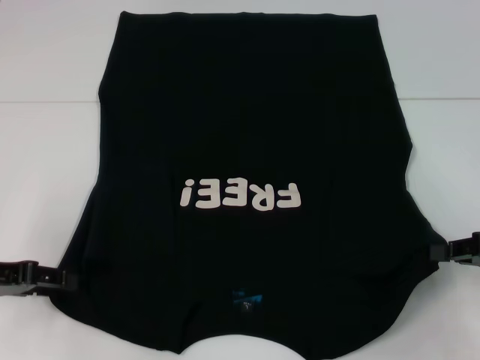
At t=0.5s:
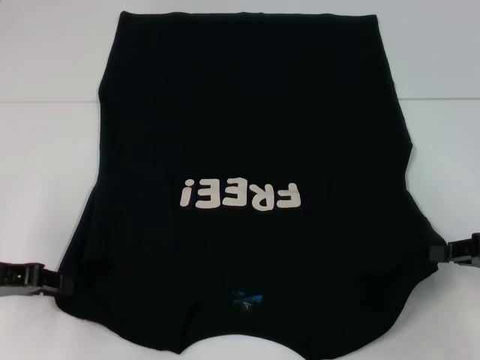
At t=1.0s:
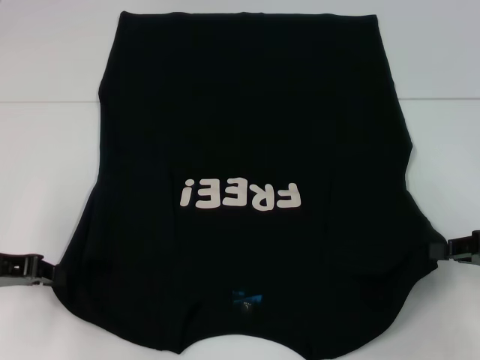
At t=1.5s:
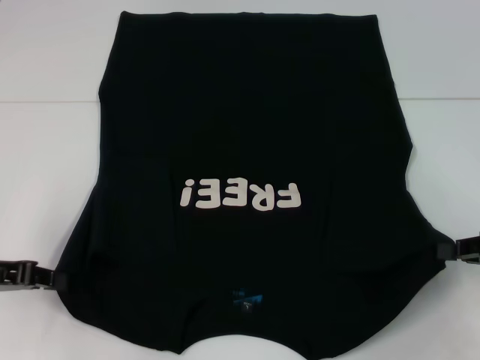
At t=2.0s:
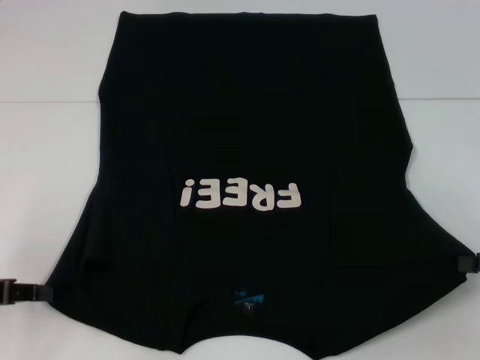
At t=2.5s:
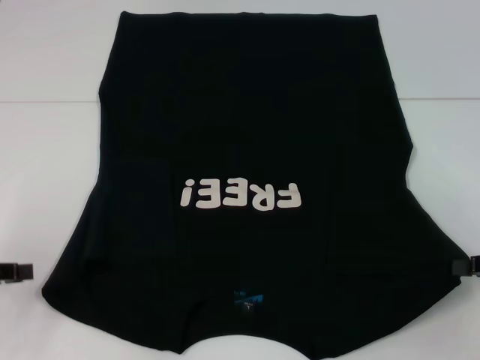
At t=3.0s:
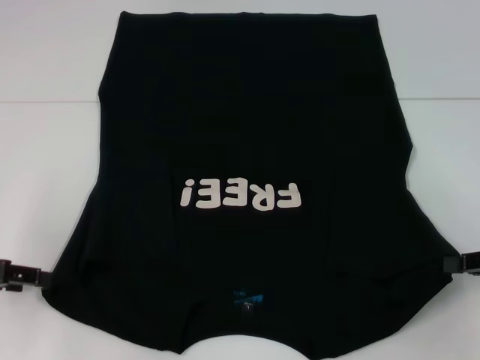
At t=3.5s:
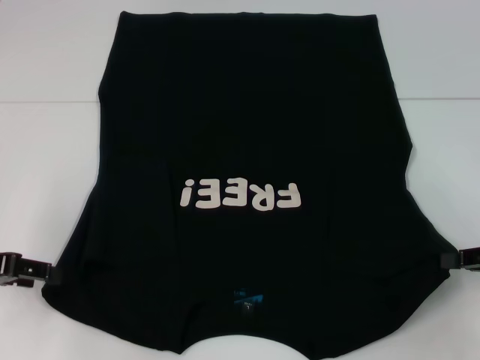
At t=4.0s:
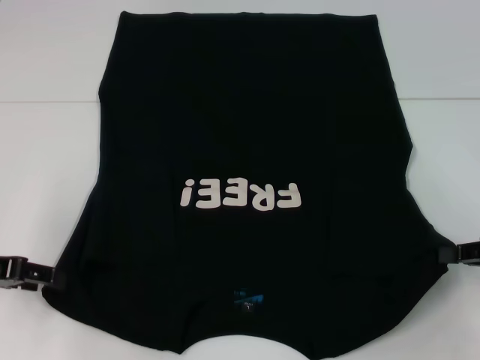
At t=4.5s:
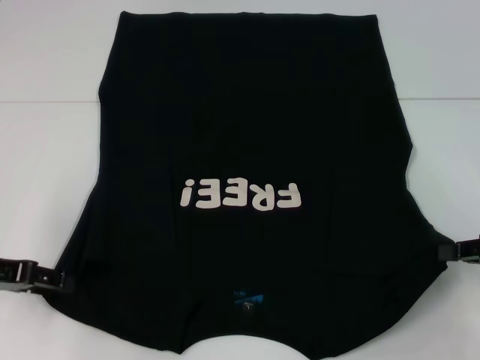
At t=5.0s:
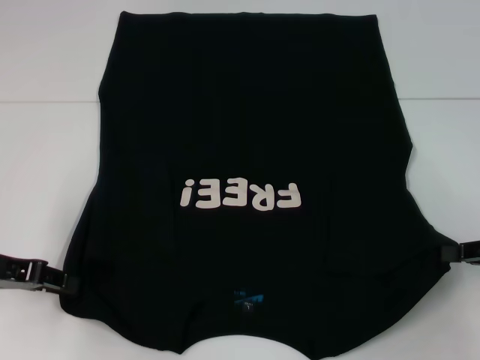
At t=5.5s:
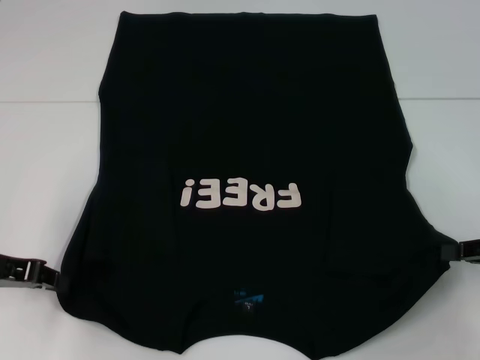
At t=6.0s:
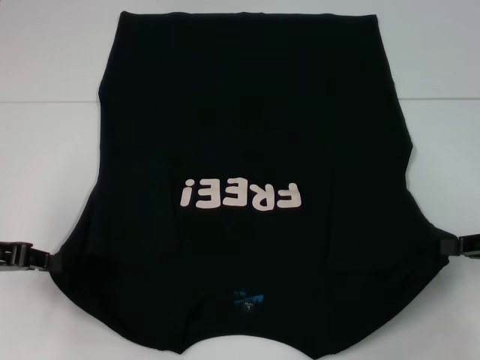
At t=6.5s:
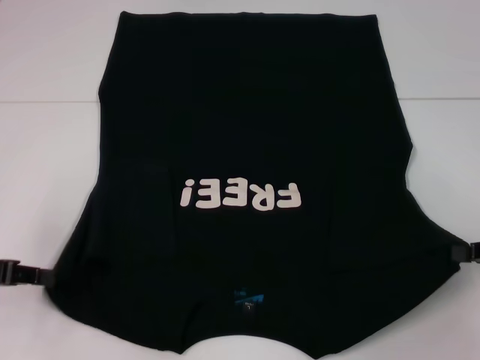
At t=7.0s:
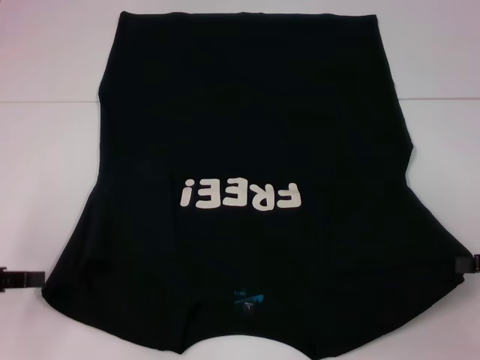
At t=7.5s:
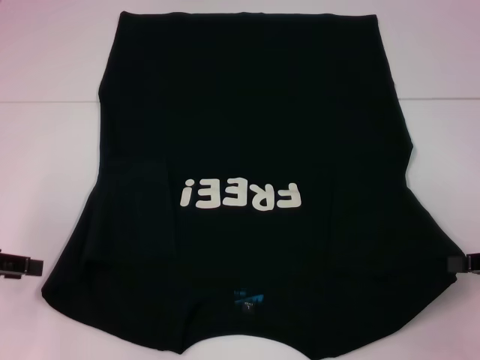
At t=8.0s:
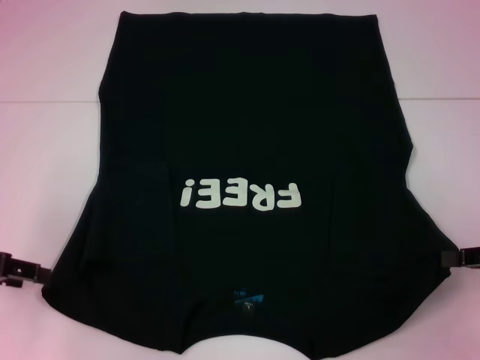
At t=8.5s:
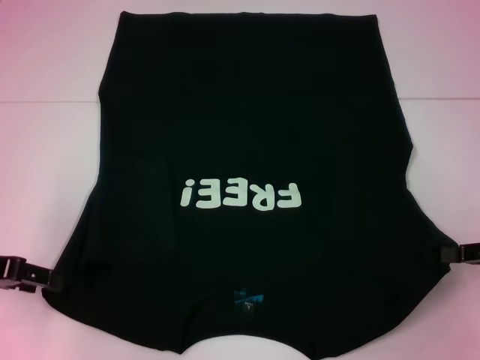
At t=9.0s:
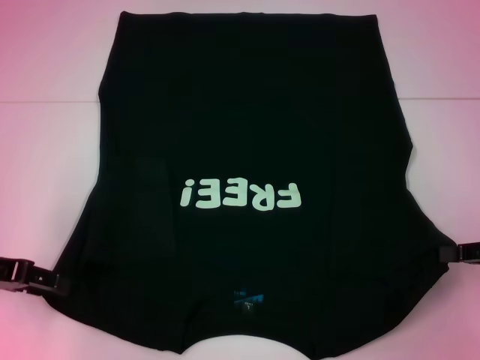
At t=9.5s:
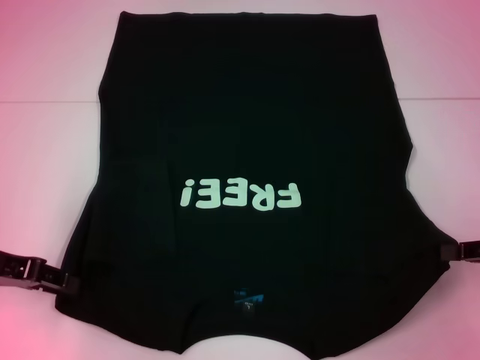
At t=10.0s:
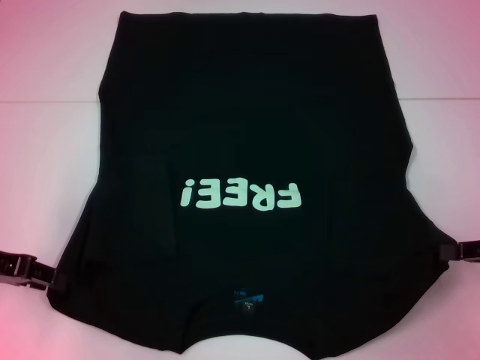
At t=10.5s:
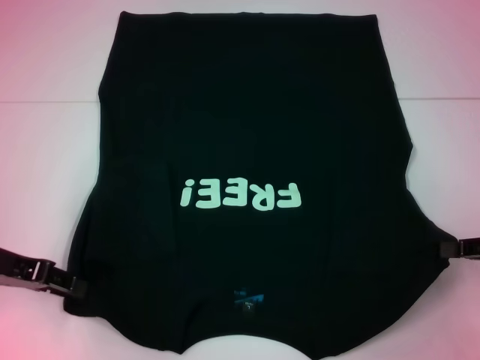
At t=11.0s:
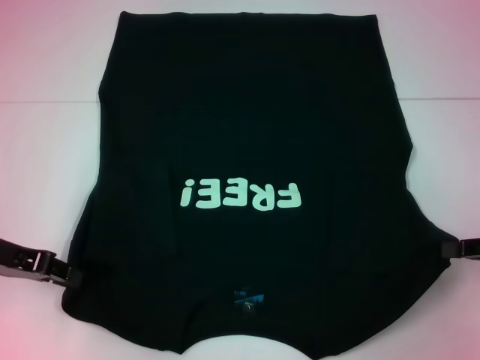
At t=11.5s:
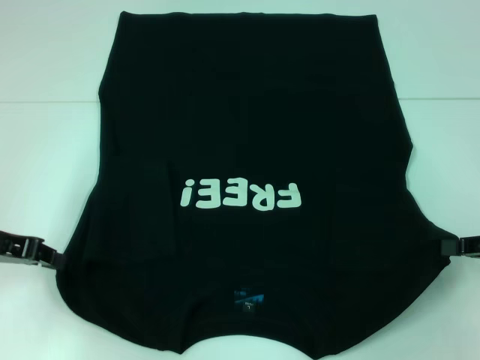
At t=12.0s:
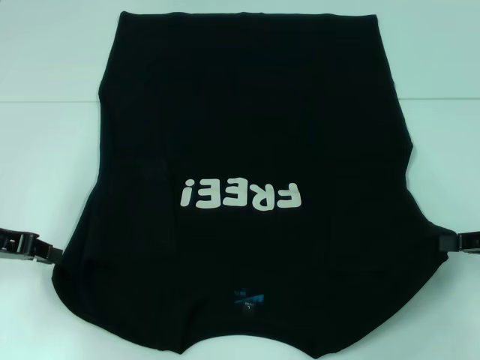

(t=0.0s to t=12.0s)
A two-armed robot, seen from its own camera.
t=0.0s - t=2.0s: The left gripper closes up.
t=2.0s - t=4.0s: The left gripper opens.
t=4.0s - t=6.0s: The left gripper closes up.
t=6.0s - t=8.0s: The left gripper opens its fingers.
t=8.0s - t=10.0s: There are only small adjustments of the grippers.

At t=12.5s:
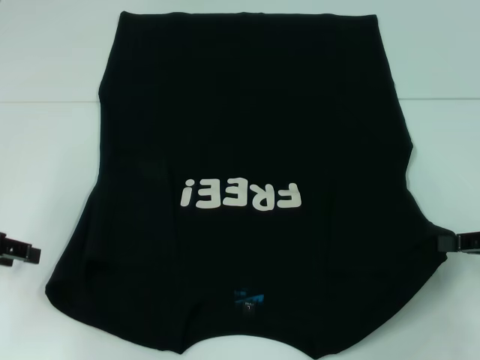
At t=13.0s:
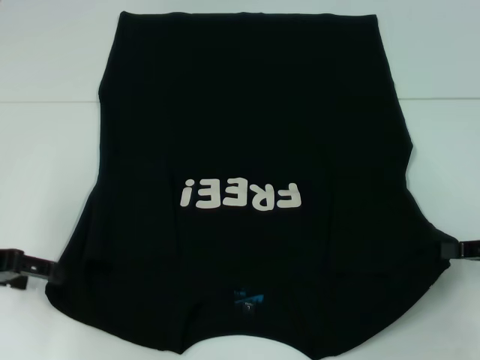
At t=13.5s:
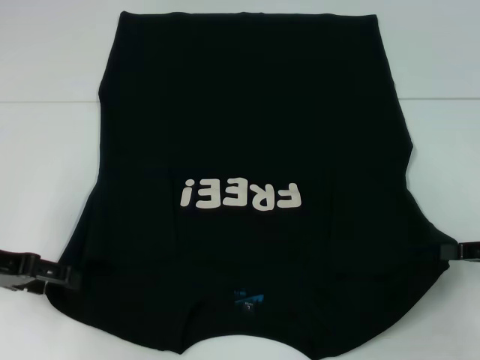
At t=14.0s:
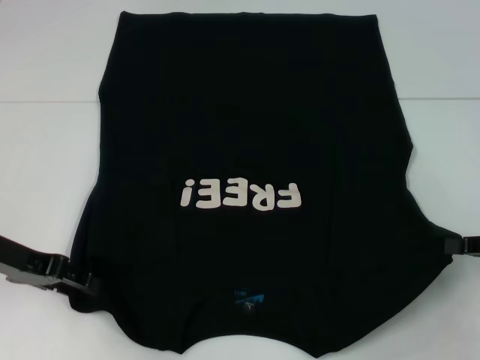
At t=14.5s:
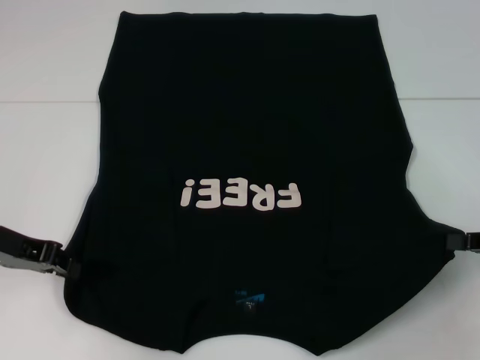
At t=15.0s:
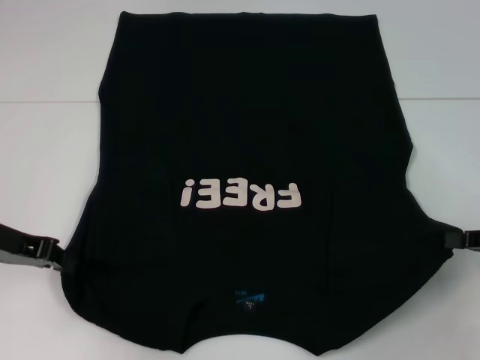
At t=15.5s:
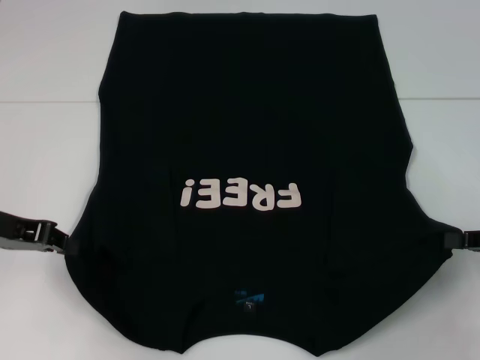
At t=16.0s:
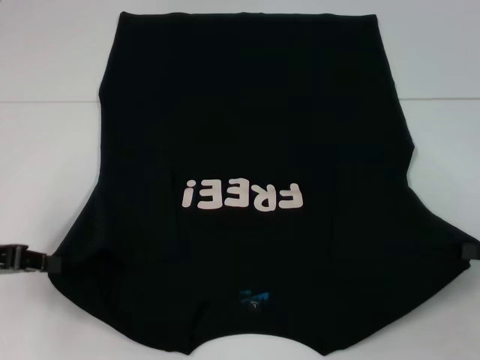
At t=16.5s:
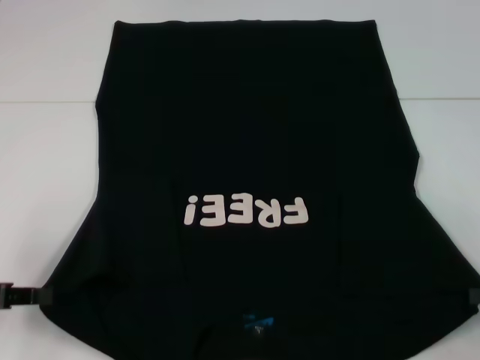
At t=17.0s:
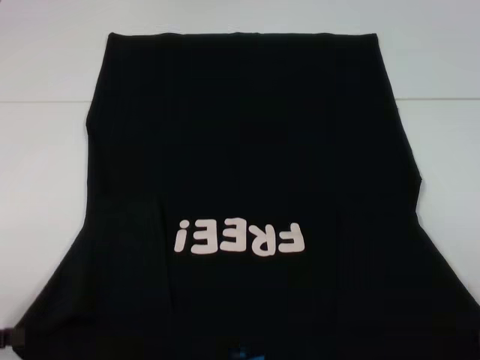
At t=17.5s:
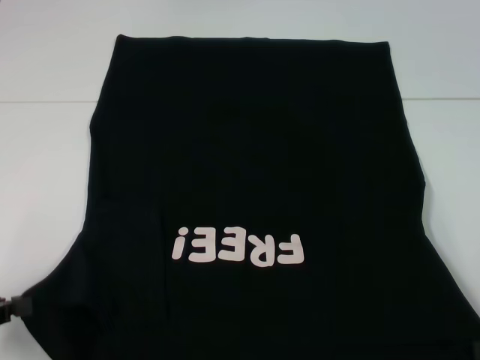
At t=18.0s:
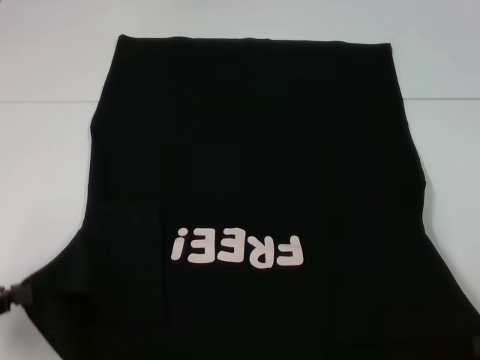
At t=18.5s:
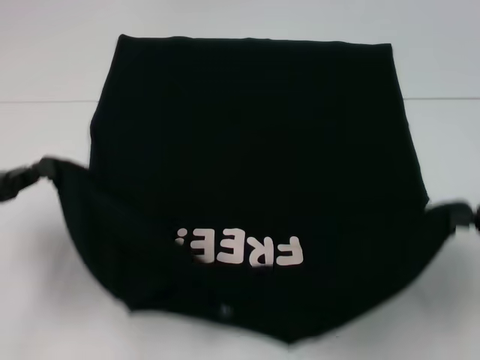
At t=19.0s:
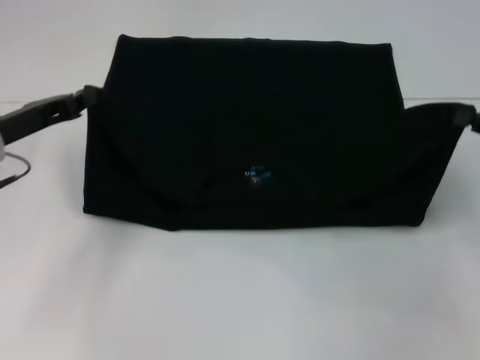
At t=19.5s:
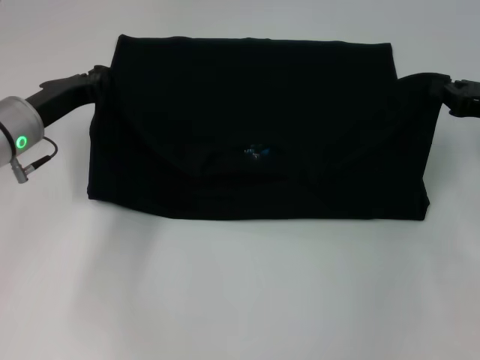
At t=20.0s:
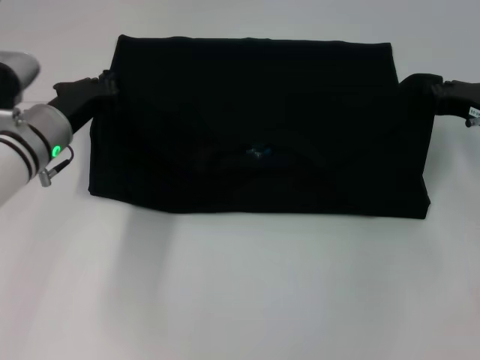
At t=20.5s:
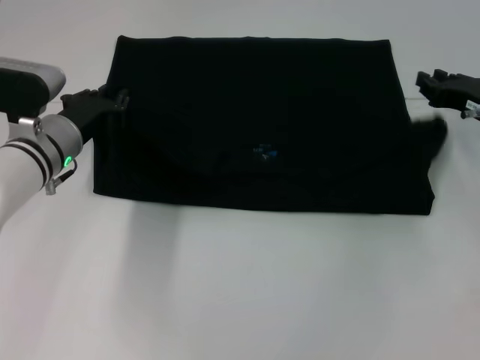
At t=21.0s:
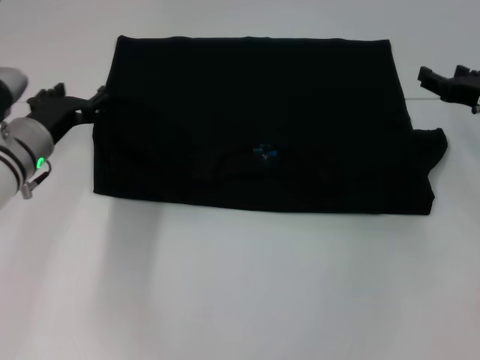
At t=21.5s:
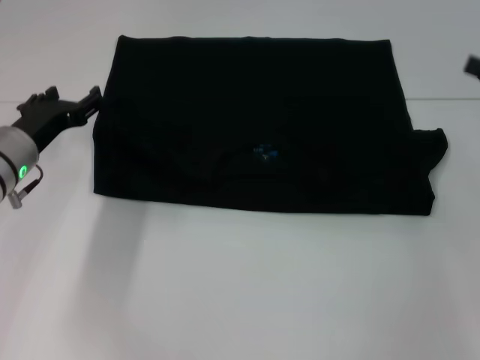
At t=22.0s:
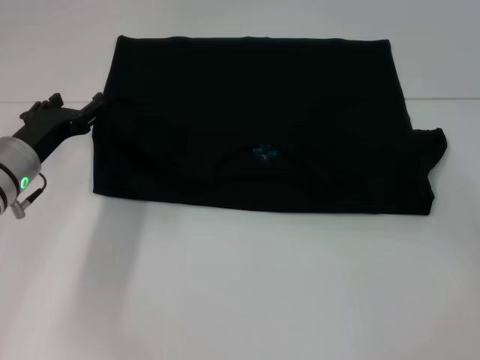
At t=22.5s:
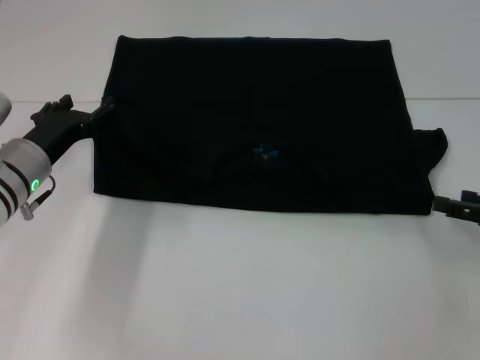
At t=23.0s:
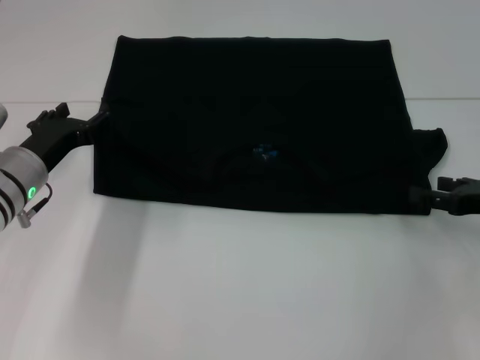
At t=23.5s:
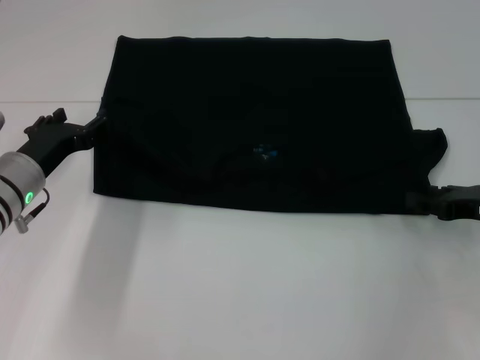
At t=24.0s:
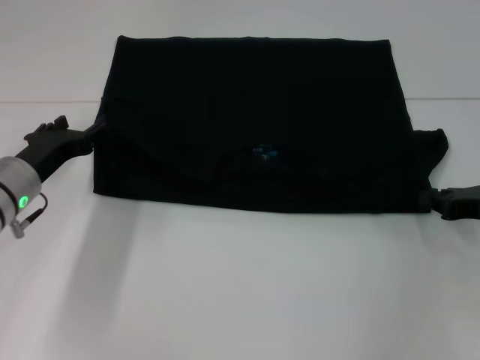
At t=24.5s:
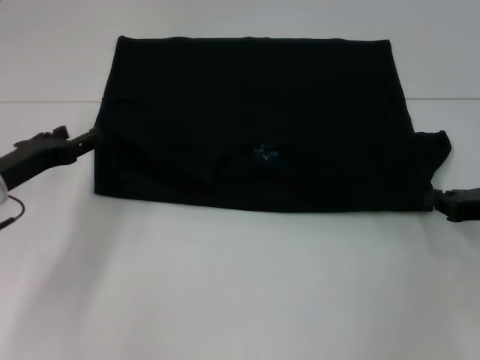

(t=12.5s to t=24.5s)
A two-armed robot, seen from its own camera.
Step, t=12.5s - t=14.5s: Grab the bottom left corner with your left hand.
Step, t=15.0s - t=20.5s: Fold the clothes with your left hand.
Step, t=15.0s - t=20.5s: Fold the clothes with your right hand.
t=12.5s - t=14.5s: The left gripper moves some 5 cm, and opens, then closes once more.
t=14.5s - t=16.5s: The left gripper heads backward and to the left, covering some 10 cm, and closes.
t=16.5s - t=18.5s: The left gripper goes backward and returns, roughly 5 cm each way; the right gripper moves upward, roughly 5 cm.
t=18.5s - t=20.5s: The right gripper moves forward and to the left, approximately 15 cm. Meanwhile the left gripper shifts about 20 cm to the right and forward.
t=20.5s - t=22.5s: The right gripper travels backward and to the right by some 10 cm, and opens up. Meanwhile the left gripper opens.
t=22.5s - t=24.5s: The left gripper moves about 5 cm, while the right gripper closes up.

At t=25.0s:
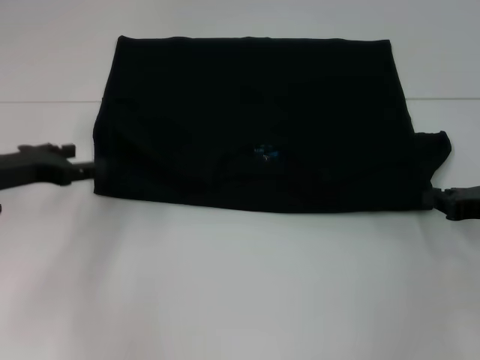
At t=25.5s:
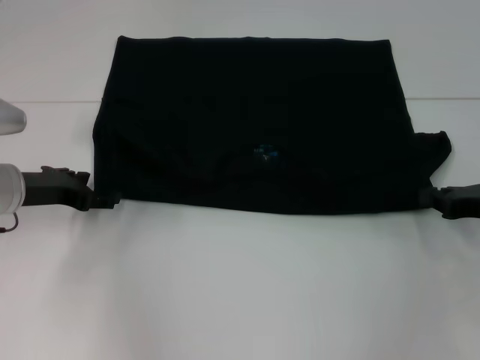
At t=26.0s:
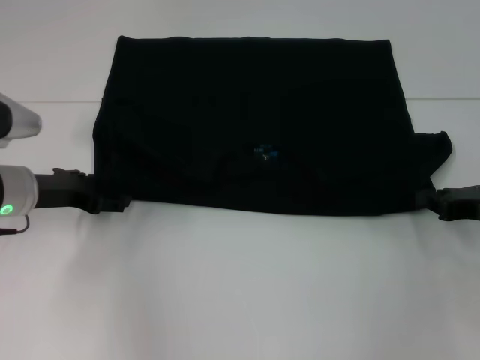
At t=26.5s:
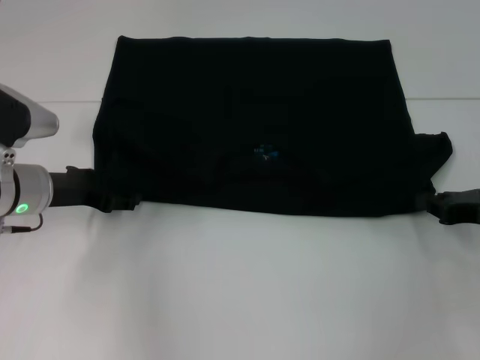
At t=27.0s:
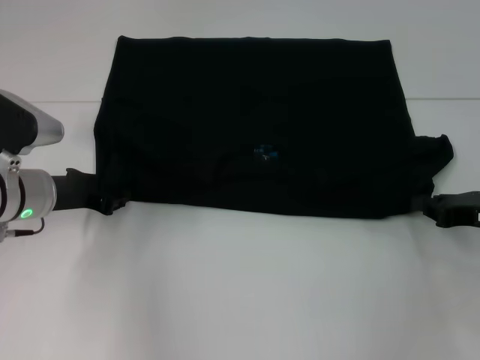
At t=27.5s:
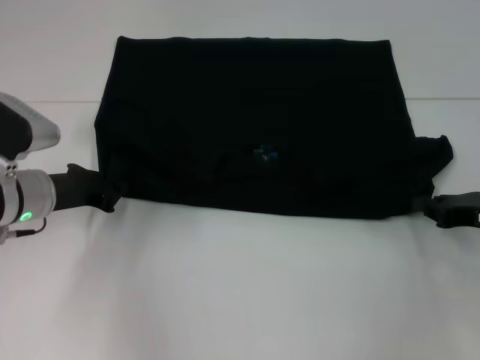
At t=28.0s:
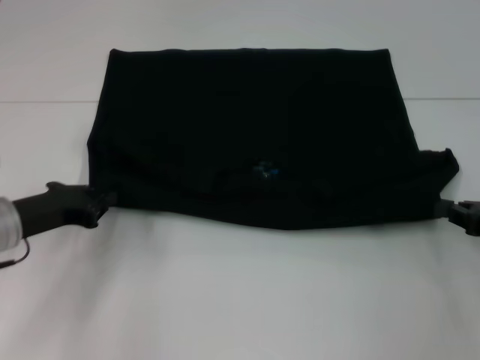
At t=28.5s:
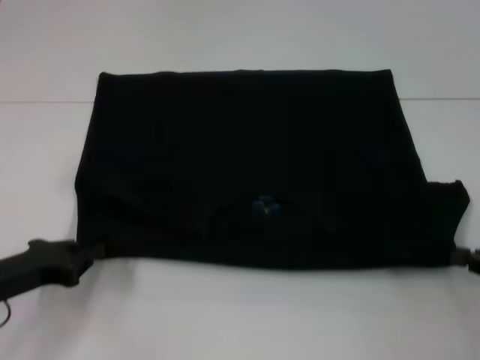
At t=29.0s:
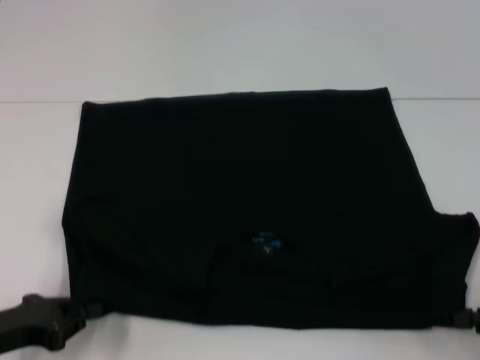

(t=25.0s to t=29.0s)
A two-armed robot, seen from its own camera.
t=25.0s - t=27.0s: The left gripper is displaced to the right by approximately 5 cm, and closes up.
t=27.0s - t=29.0s: The left gripper moves backward, roughly 15 cm, and closes. The right gripper moves backward, roughly 10 cm.
